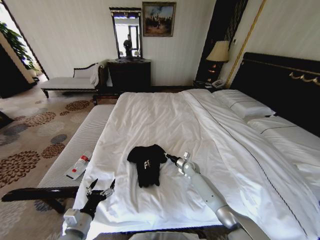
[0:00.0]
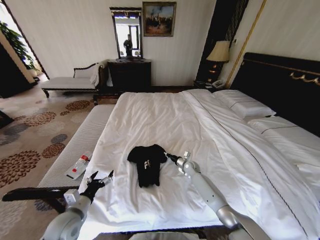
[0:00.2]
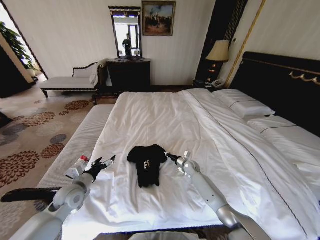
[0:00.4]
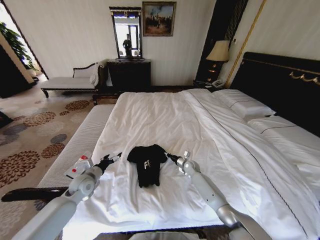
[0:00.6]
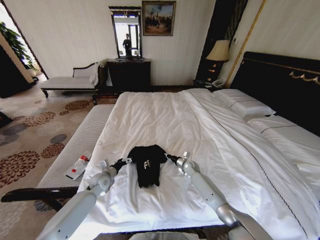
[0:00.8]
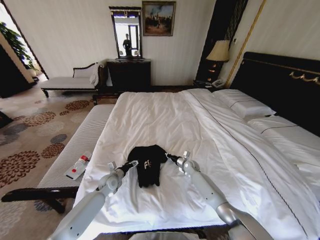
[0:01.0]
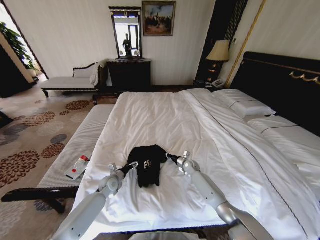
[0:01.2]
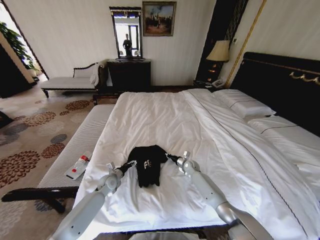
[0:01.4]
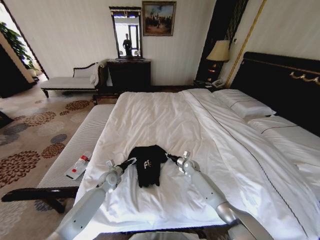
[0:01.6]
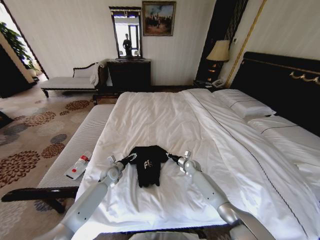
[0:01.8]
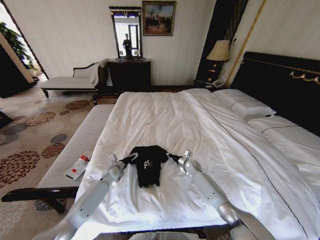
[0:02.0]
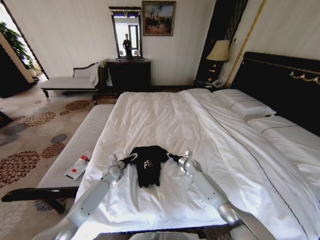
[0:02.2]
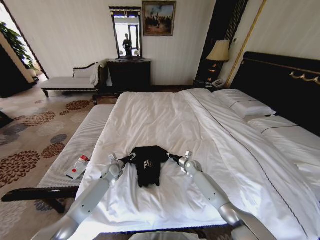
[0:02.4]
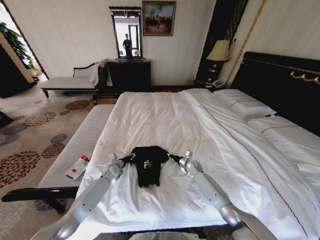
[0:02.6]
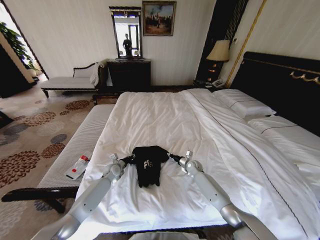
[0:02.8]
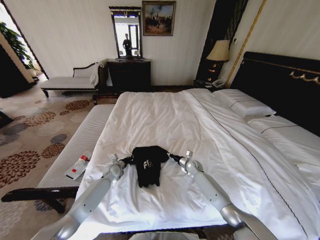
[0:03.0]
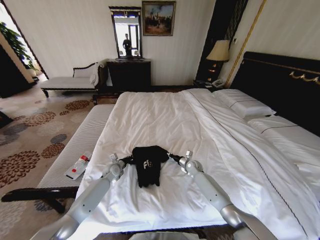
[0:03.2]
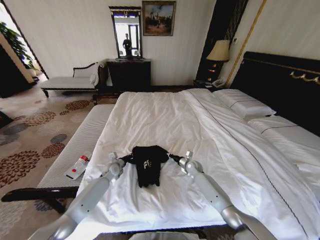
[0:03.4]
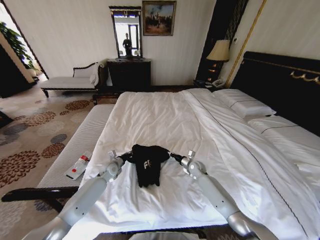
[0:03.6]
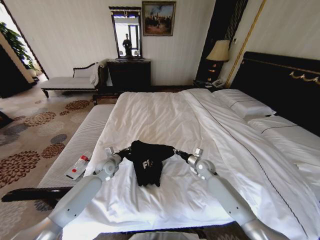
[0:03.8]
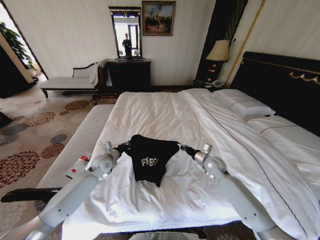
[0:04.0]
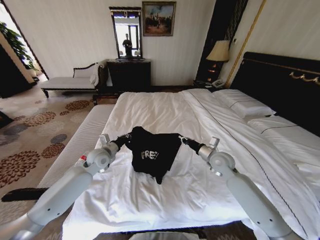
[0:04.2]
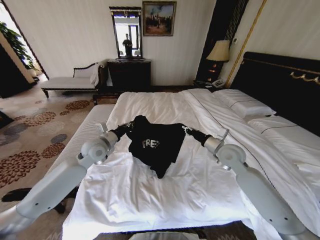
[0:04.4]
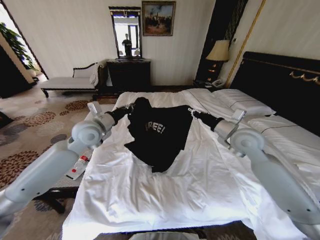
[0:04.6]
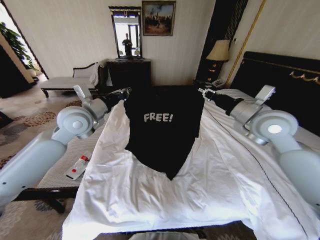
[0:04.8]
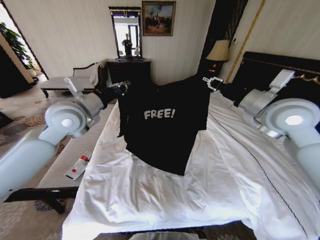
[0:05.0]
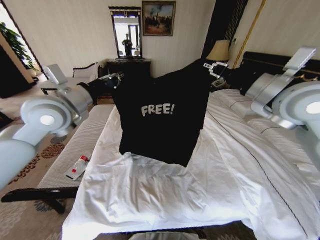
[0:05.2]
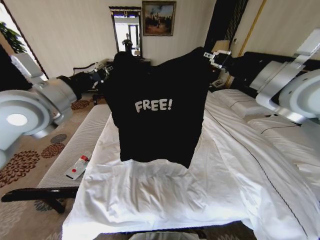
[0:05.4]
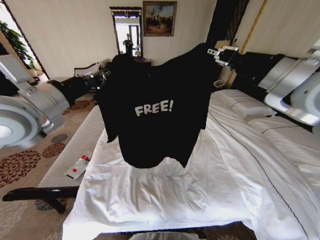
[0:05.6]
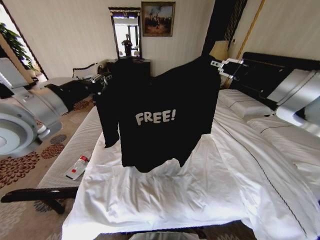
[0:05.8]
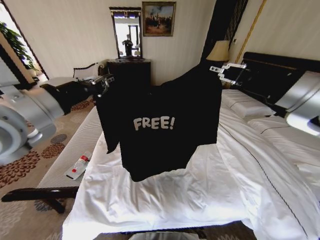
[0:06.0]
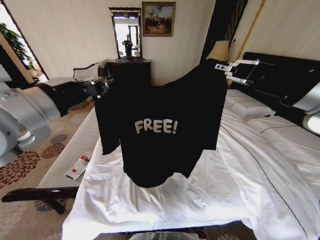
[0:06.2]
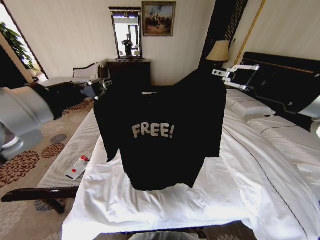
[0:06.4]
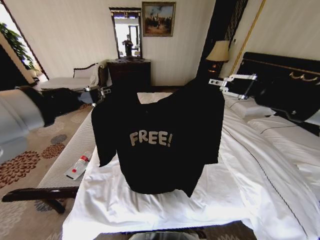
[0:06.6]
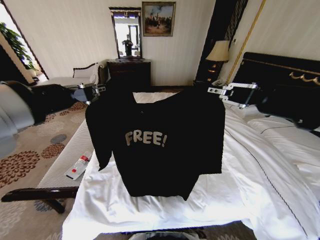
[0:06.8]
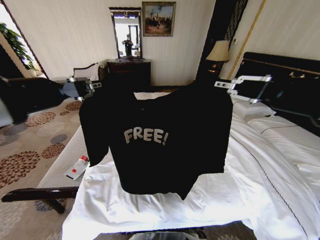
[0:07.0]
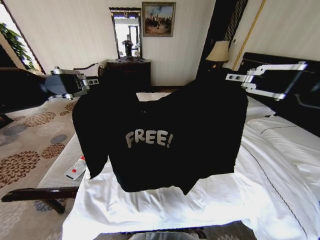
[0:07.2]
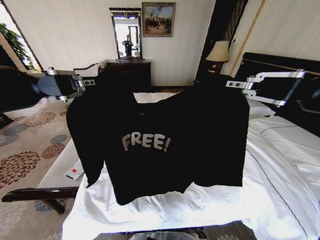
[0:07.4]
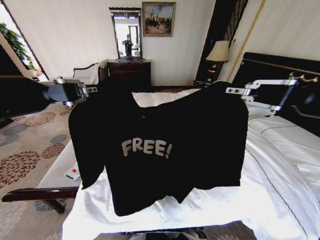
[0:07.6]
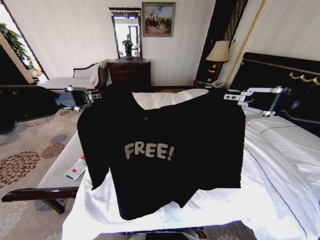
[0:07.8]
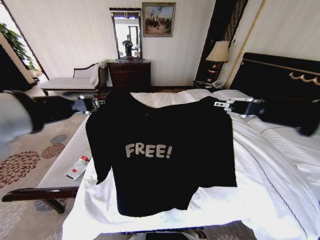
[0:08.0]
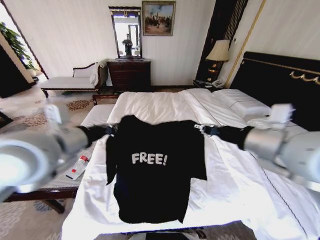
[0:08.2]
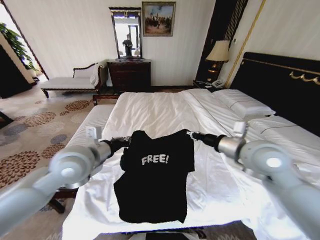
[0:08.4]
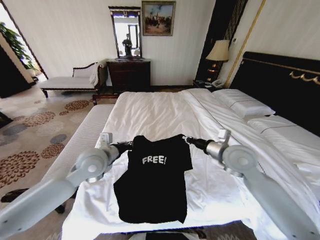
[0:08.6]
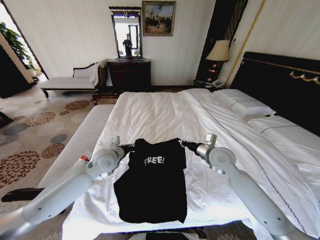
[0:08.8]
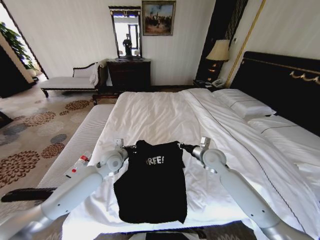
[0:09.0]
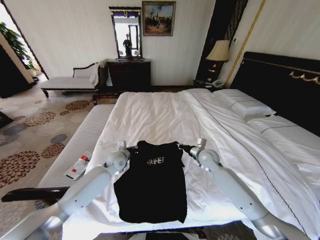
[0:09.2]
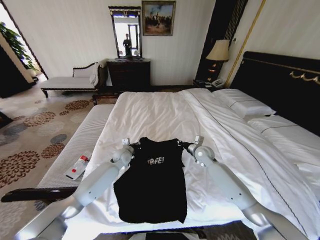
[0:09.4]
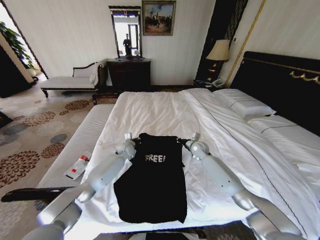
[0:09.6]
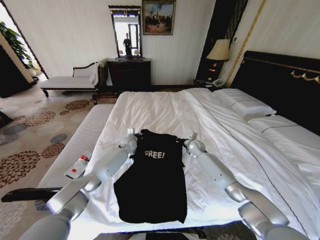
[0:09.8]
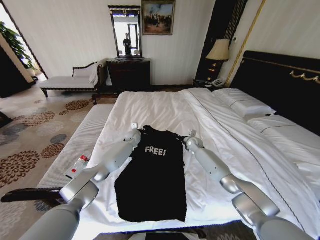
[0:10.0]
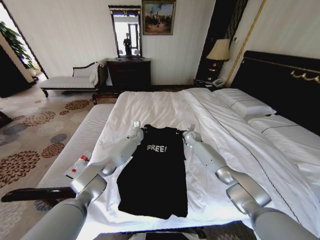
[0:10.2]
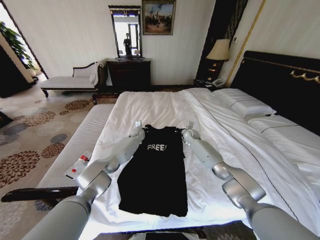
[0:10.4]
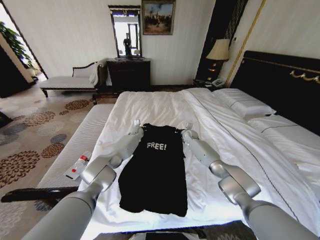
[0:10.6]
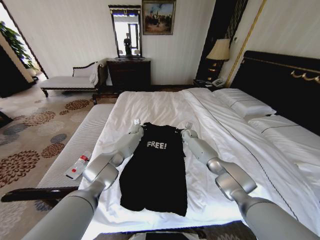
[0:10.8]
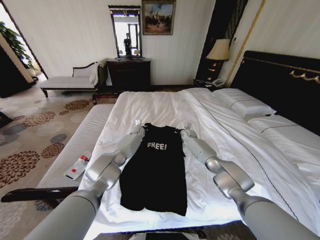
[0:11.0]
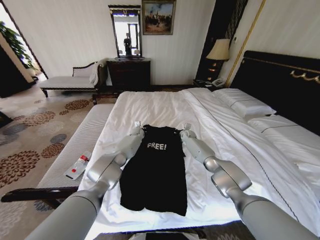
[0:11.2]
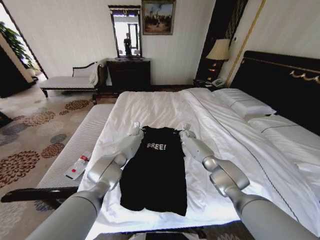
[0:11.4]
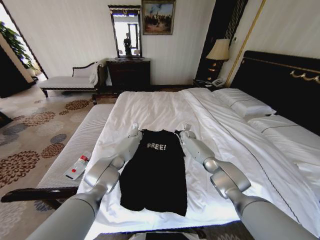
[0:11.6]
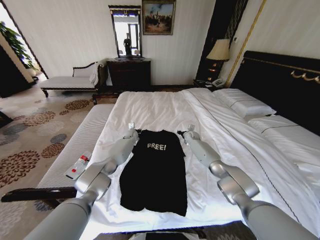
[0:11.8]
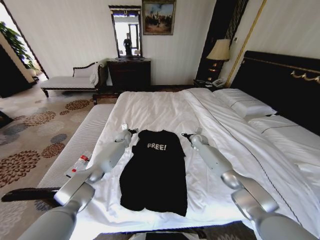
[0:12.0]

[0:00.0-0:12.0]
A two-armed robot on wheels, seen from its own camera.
Task of the whole recording: Fold the clothes on the bed.
0:00.0 to 0:01.6: The left gripper shifts about 25 cm forward.
0:01.6 to 0:03.0: The left gripper closes up.
0:03.0 to 0:04.4: Both grippers travel together upward, about 25 cm.
0:04.4 to 0:06.0: Both grippers travel together upward and backward, some 30 cm.
0:06.0 to 0:07.6: Both grippers travel together backward and upward, about 15 cm.
0:07.6 to 0:09.0: Both grippers travel together downward and forward, some 50 cm.
0:09.0 to 0:10.4: Both grippers travel together forward, approximately 25 cm.
0:10.4 to 0:12.0: The right gripper moves to the right, some 5 cm, and opens. The left gripper travels to the left by approximately 10 cm, and opens up.

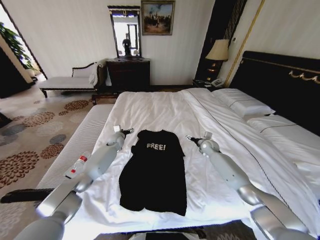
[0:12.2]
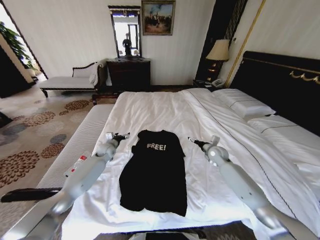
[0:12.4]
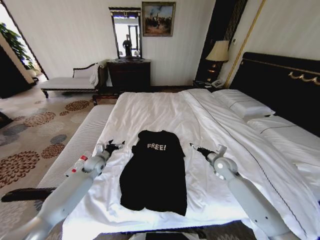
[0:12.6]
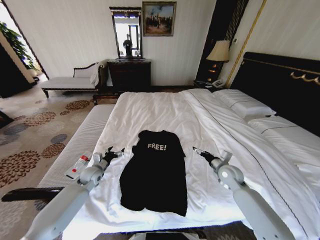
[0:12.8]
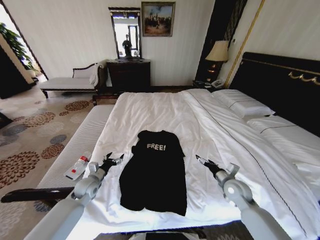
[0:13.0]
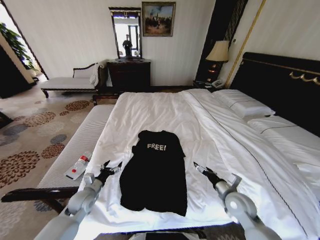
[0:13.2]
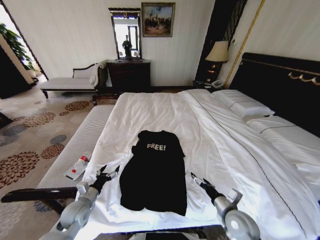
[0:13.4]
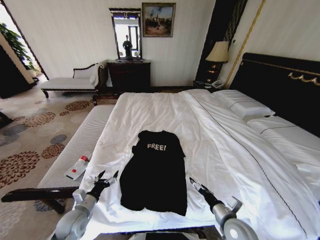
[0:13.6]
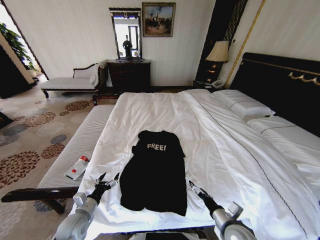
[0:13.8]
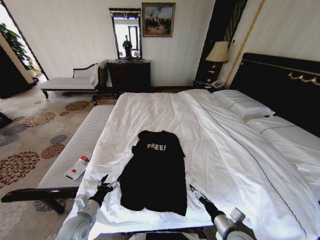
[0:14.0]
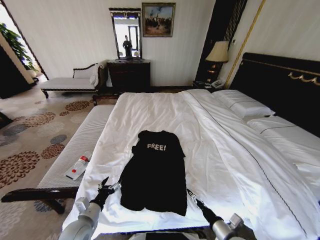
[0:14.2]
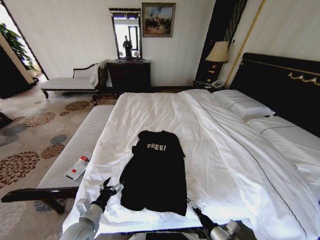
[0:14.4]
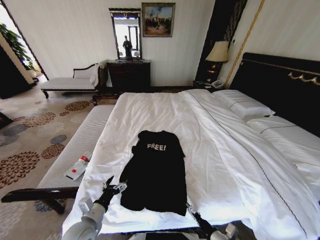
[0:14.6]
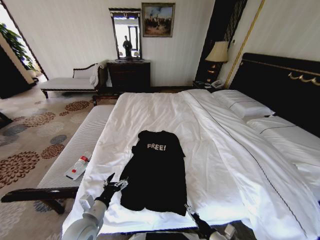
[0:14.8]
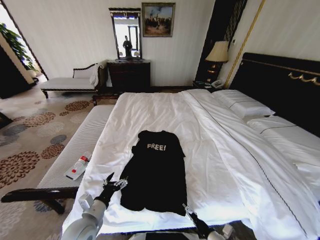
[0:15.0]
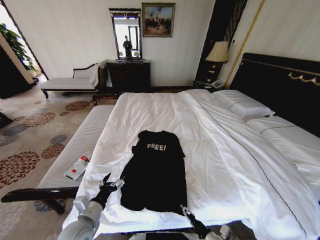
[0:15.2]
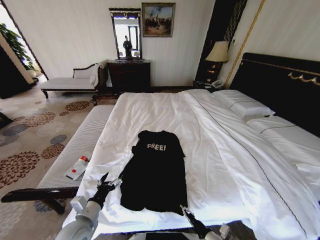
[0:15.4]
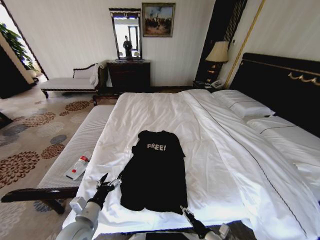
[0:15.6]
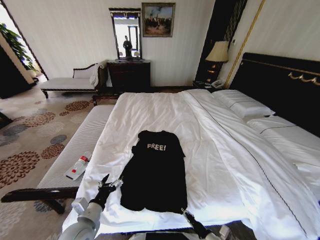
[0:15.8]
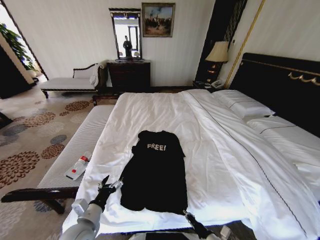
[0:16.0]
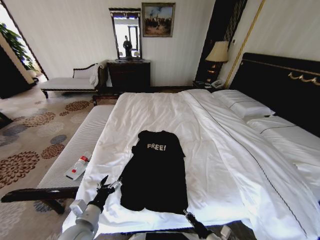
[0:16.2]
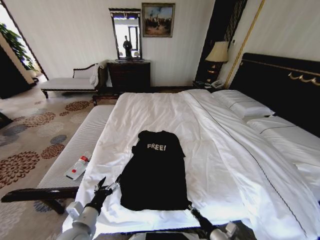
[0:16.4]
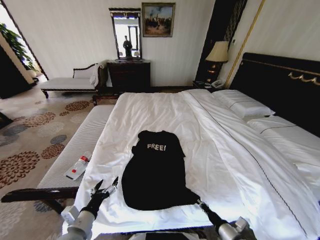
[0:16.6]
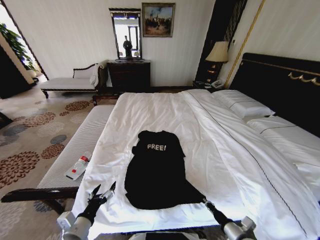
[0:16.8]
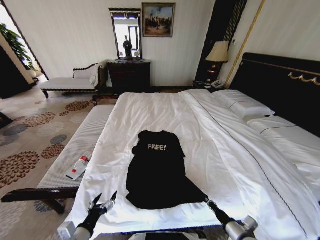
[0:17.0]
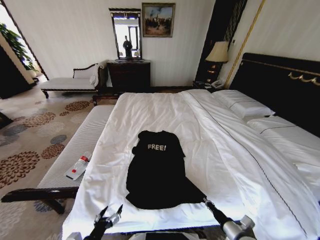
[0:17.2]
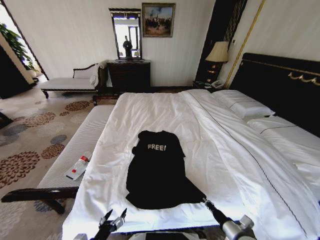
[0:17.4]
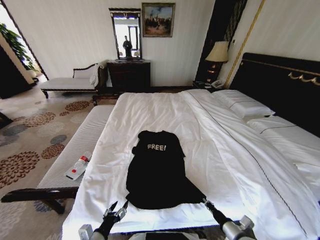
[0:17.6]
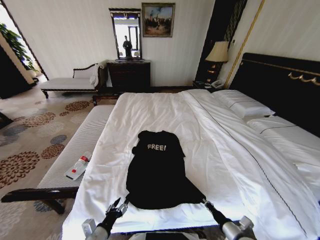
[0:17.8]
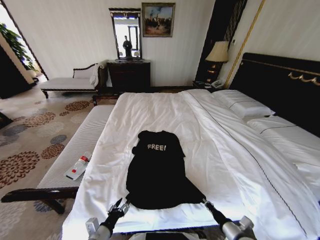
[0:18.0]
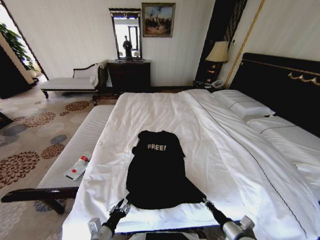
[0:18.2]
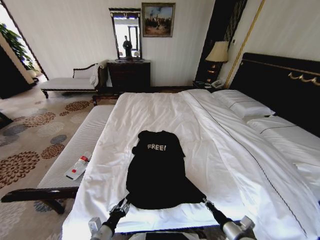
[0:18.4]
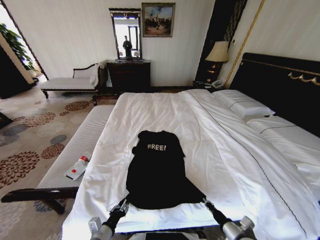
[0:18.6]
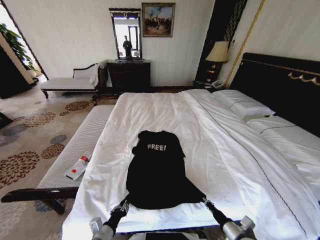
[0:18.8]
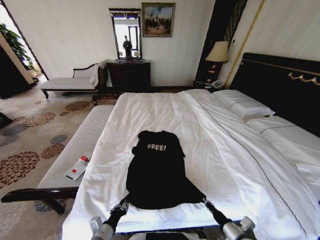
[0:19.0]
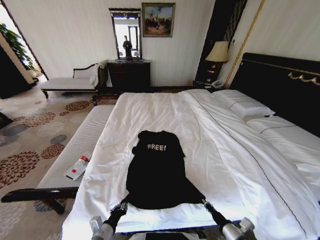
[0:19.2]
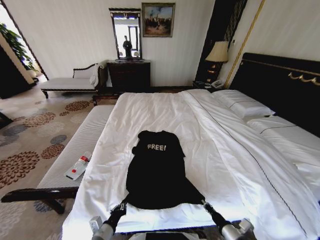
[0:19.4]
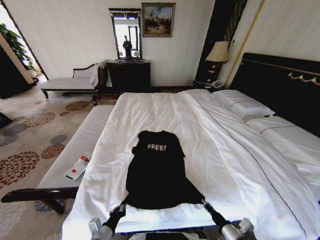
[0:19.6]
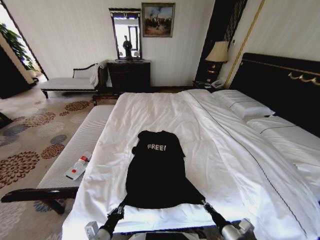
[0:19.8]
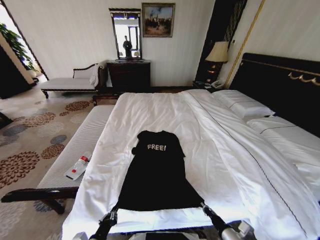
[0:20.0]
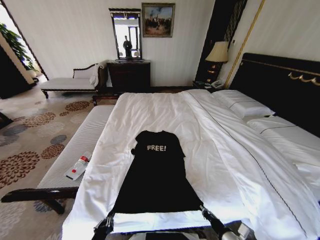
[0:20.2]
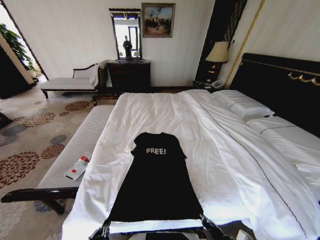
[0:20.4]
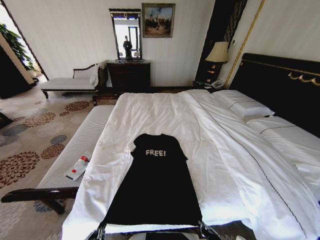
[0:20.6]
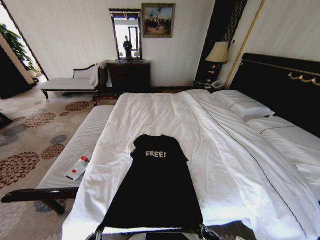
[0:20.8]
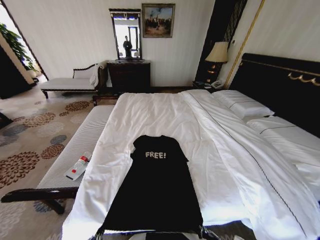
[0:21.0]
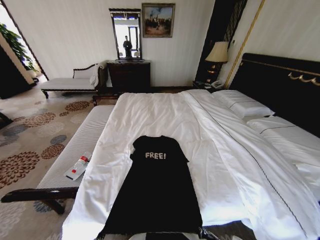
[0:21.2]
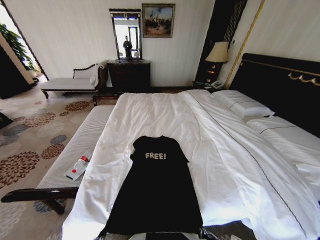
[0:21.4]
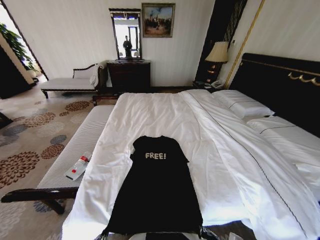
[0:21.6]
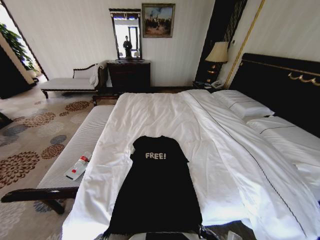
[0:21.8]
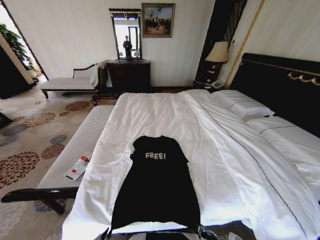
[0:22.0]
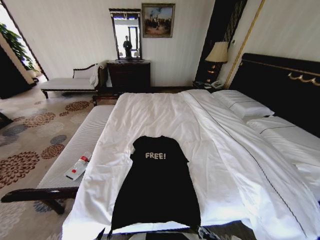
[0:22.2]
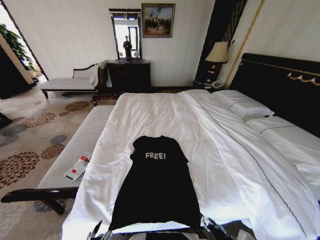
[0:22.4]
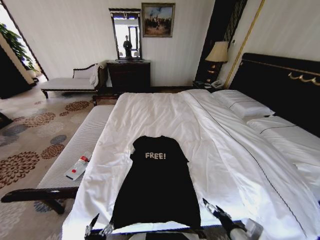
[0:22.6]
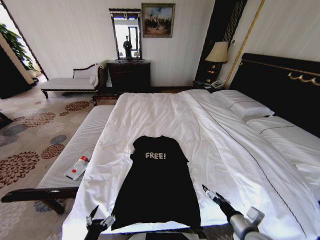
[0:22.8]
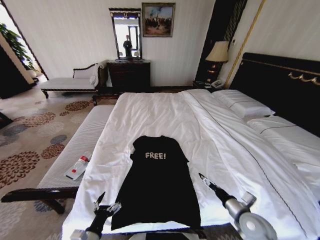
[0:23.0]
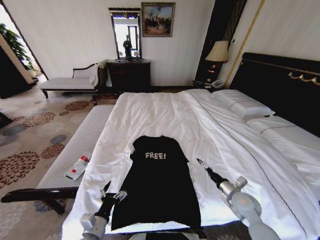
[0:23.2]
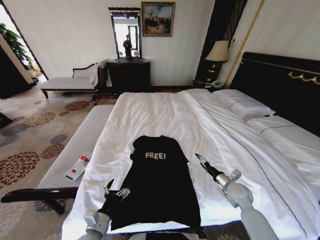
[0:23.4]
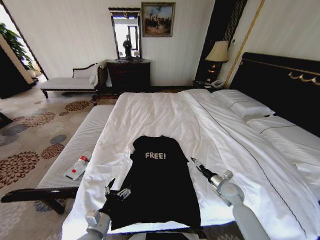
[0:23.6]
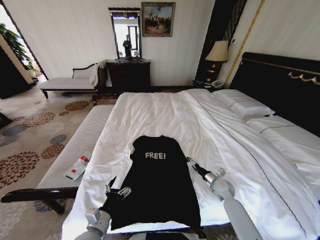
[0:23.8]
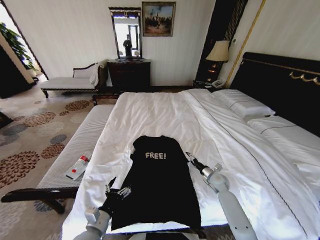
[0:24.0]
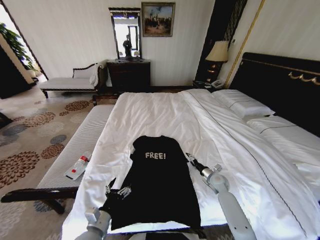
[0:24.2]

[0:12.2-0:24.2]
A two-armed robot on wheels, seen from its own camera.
Task of the whole recording: Fold the clothes on the bed.
0:12.2 to 0:13.8: Both grippers move backward, about 40 cm.
0:13.8 to 0:15.2: The right gripper travels downward and backward by approximately 10 cm; the left gripper moves upward and to the right, roughly 10 cm.
0:15.2 to 0:16.6: The right gripper moves roughly 5 cm, and closes its fingers.
0:16.6 to 0:18.2: The left gripper is displaced downward by about 10 cm, and closes its fingers.
0:18.2 to 0:19.8: The left gripper closes its fingers.
0:19.8 to 0:21.2: The right gripper heads backward, covering some 5 cm. Meanwhile the left gripper is displaced backward by roughly 10 cm.
0:21.2 to 0:22.6: The left gripper opens its fingers. The right gripper changes place by about 5 cm, and opens.
0:22.6 to 0:24.2: The right gripper moves forward, some 30 cm. The left gripper heads forward, covering approximately 10 cm.
